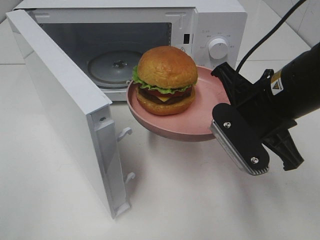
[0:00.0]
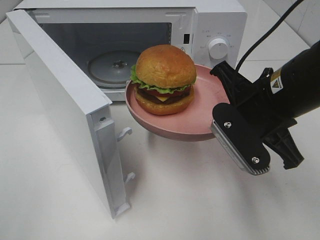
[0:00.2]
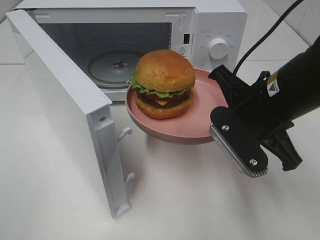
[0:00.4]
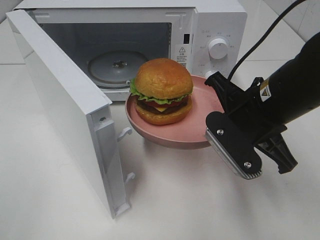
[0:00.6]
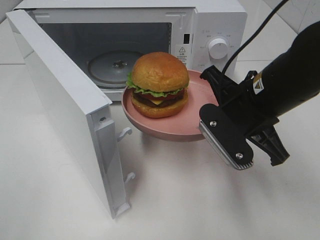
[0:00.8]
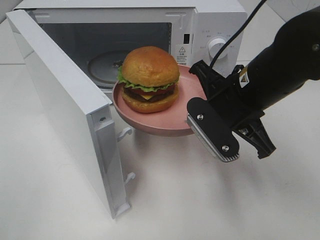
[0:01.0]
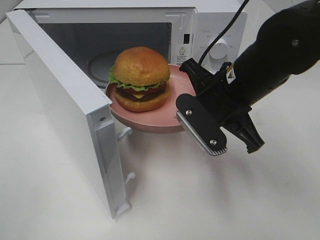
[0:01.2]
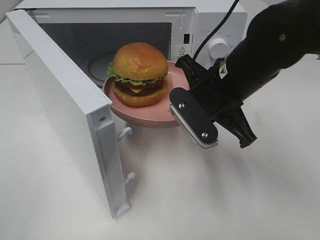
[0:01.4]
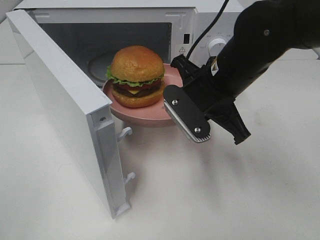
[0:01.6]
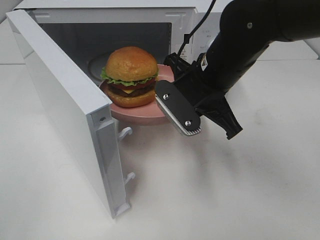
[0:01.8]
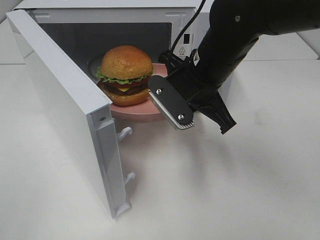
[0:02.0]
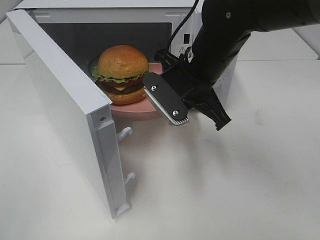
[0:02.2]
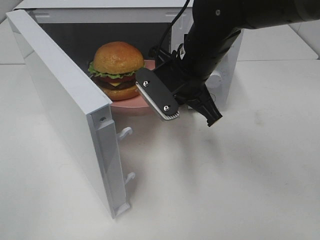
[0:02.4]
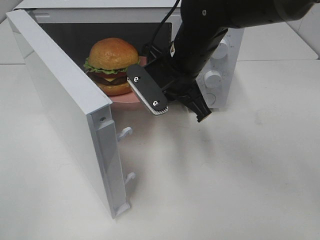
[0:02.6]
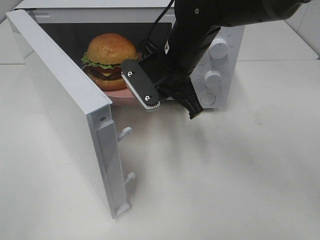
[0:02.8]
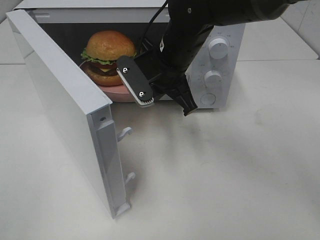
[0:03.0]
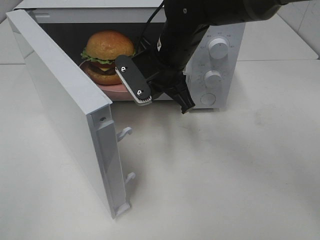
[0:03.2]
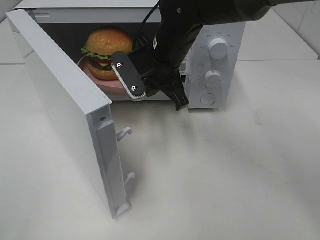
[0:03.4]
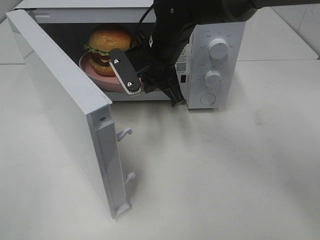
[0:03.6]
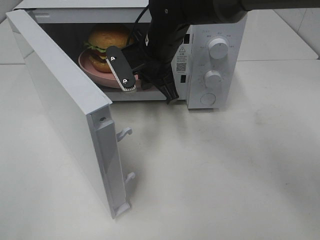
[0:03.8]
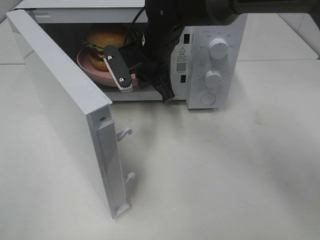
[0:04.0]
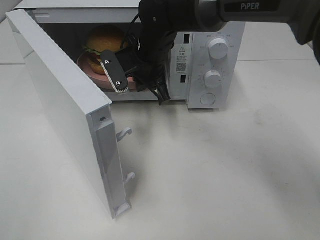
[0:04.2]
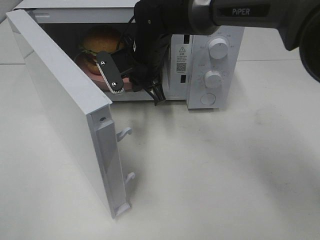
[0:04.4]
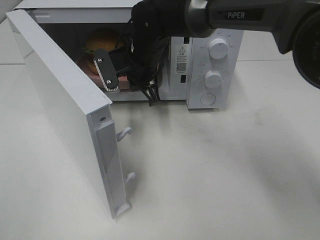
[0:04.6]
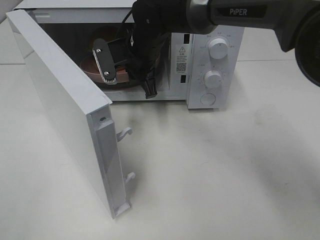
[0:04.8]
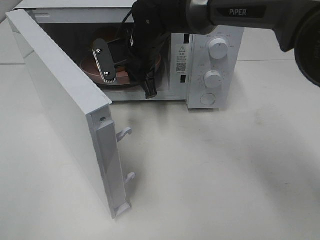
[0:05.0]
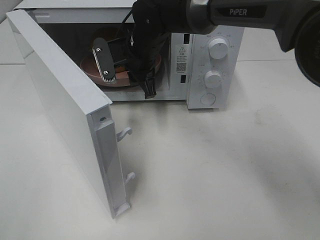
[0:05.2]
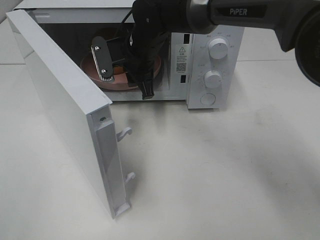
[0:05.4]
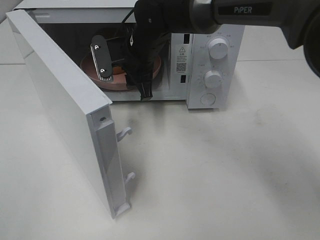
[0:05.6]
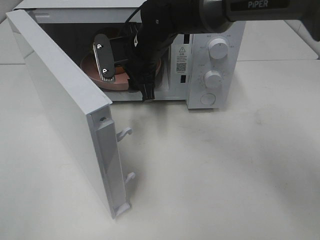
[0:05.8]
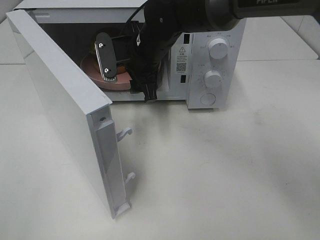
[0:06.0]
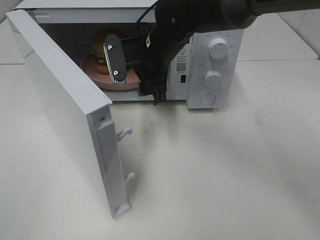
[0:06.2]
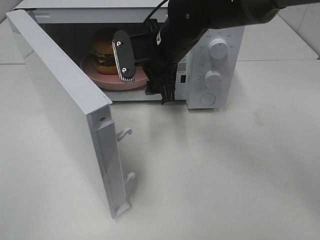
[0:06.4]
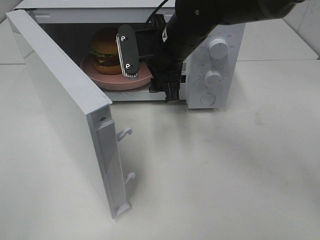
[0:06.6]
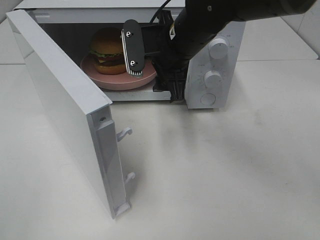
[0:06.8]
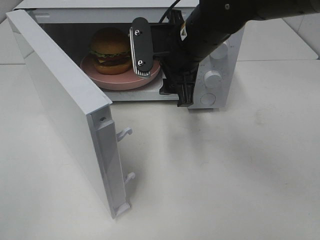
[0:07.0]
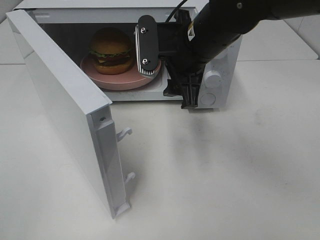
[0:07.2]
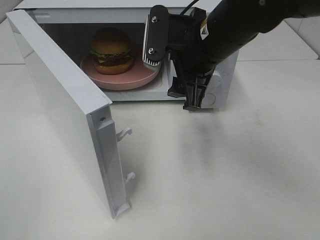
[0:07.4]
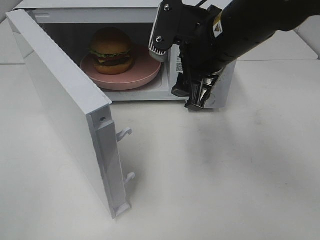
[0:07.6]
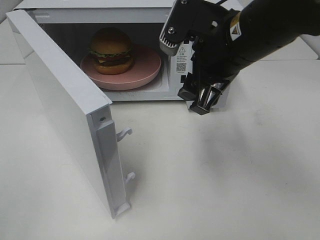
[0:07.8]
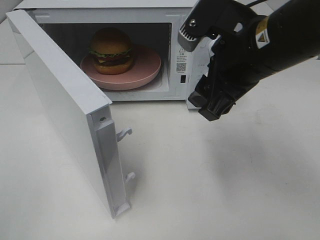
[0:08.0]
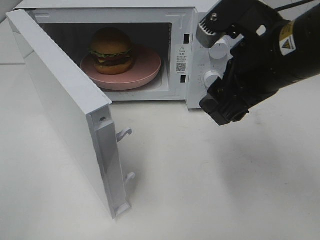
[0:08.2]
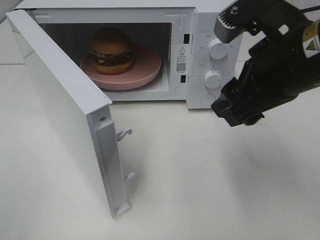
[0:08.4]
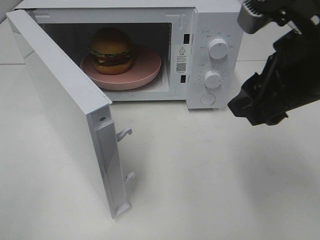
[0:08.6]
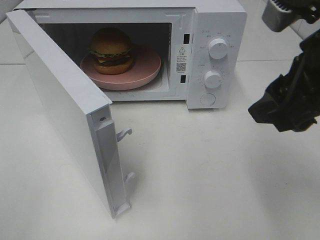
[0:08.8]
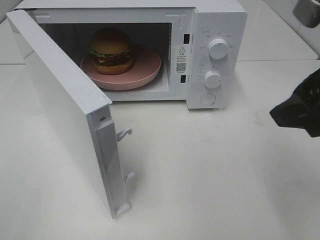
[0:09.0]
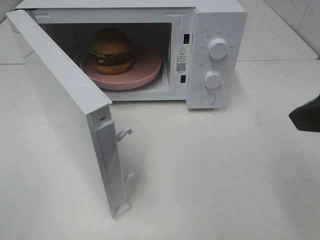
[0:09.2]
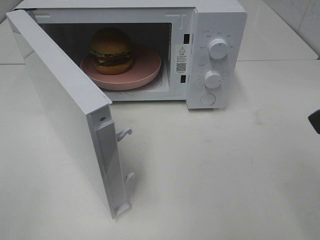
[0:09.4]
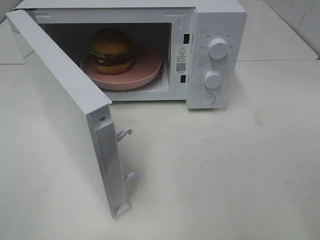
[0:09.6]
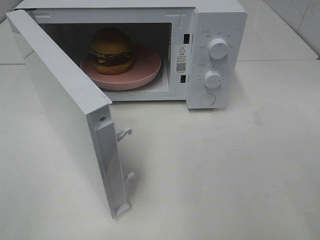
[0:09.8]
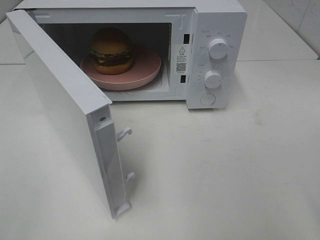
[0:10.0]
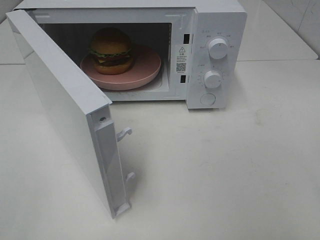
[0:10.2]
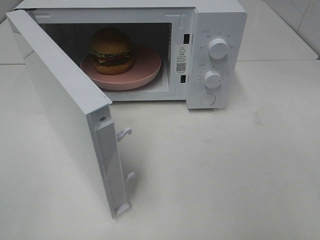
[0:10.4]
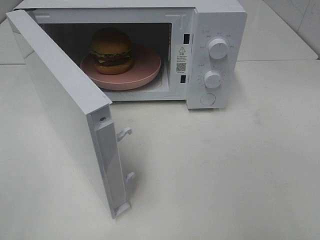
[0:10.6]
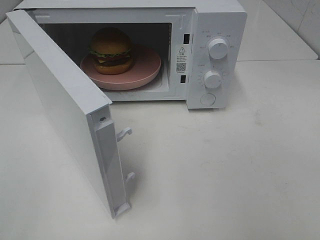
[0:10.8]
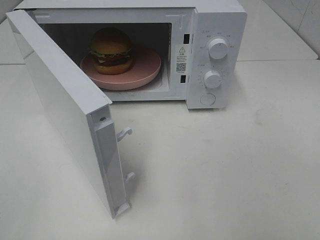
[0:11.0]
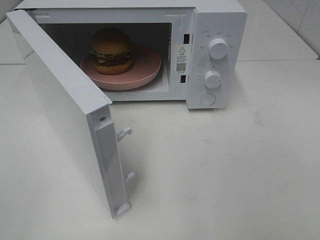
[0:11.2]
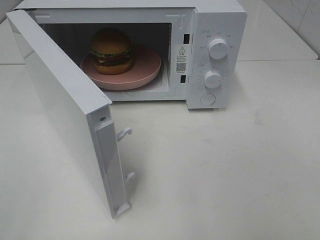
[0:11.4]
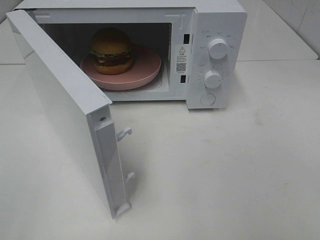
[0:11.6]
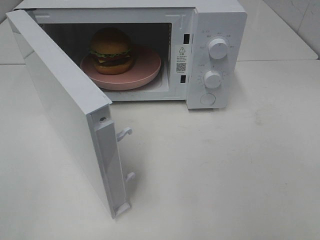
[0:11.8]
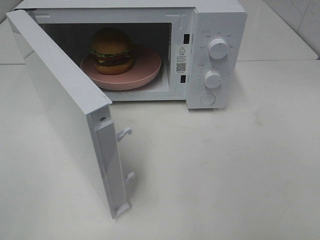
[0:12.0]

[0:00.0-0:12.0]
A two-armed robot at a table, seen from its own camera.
Task of the whole recording: Heat the burger.
Step, 0:00.0 to 0:06.4: Right hand: place the plate in the microwave.
0:00.0 to 0:01.6: The right gripper moves forward and to the left, roughly 10 cm.
0:01.6 to 0:03.0: The right gripper heads forward and to the left, covering some 10 cm.
0:03.0 to 0:04.4: The right gripper moves forward, approximately 5 cm.
0:04.4 to 0:06.0: The right gripper opens its fingers.
0:06.0 to 0:07.6: The right gripper travels backward, to the right and upward by roughly 15 cm.
0:07.6 to 0:09.0: The right gripper heads backward, to the right and upward, covering approximately 20 cm.
0:09.0 to 0:10.4: The right gripper heads backward and to the right, covering some 15 cm.

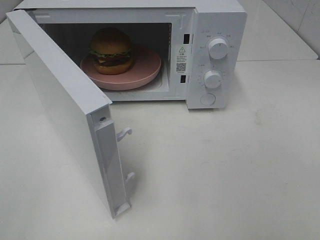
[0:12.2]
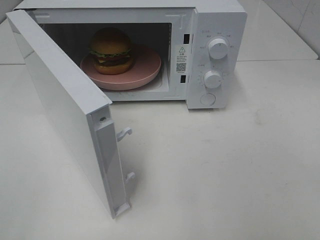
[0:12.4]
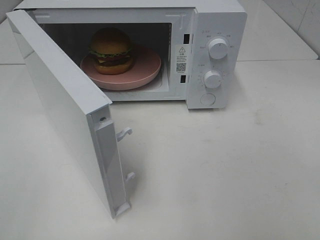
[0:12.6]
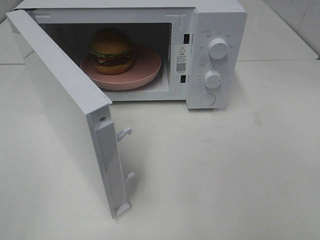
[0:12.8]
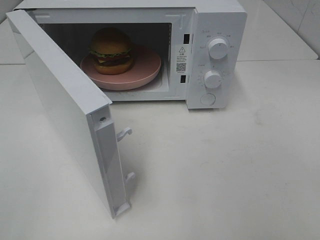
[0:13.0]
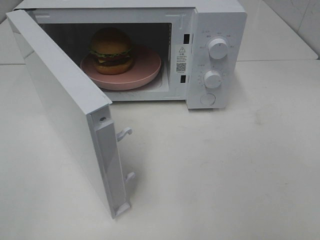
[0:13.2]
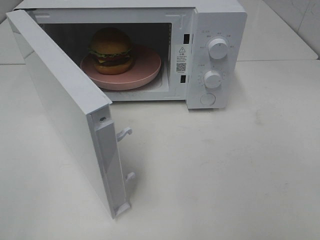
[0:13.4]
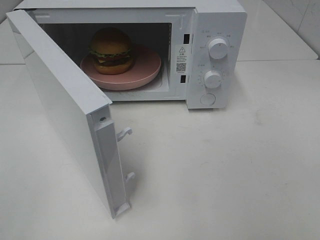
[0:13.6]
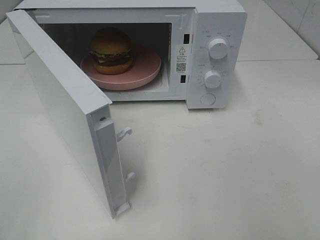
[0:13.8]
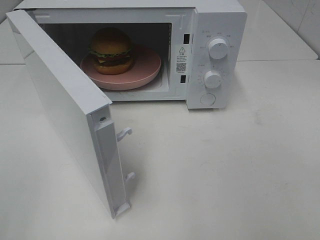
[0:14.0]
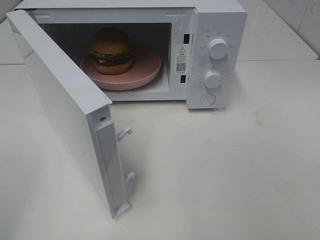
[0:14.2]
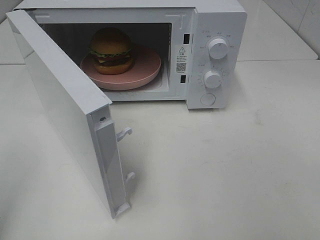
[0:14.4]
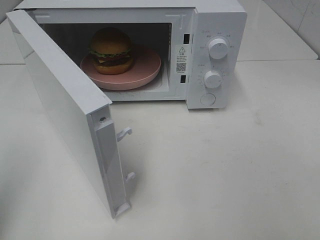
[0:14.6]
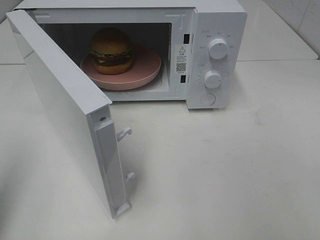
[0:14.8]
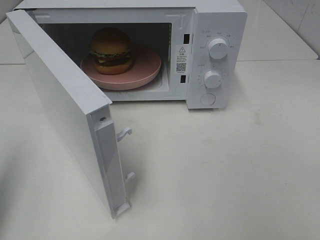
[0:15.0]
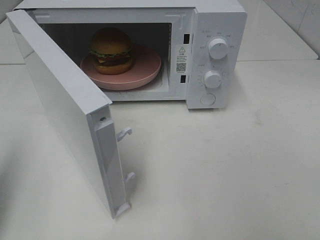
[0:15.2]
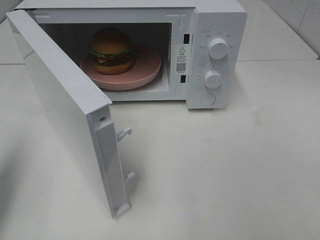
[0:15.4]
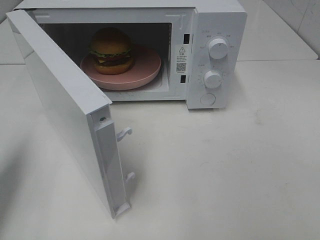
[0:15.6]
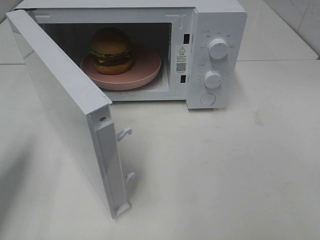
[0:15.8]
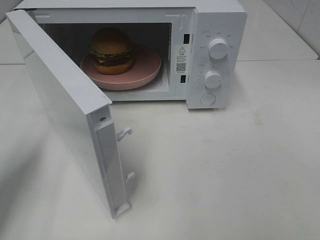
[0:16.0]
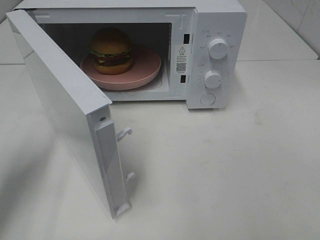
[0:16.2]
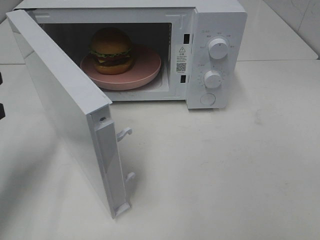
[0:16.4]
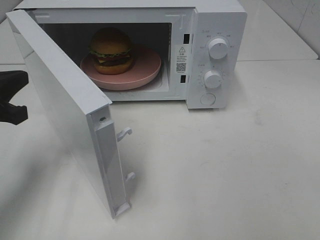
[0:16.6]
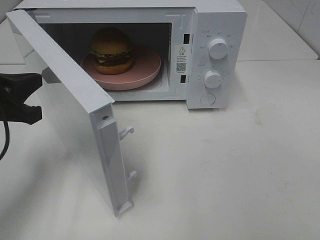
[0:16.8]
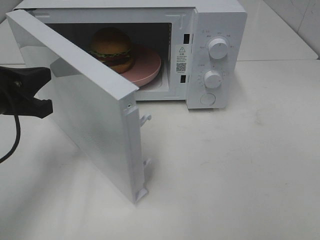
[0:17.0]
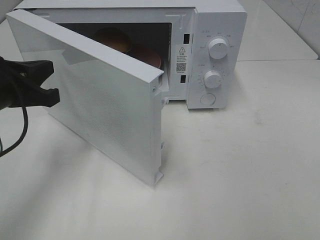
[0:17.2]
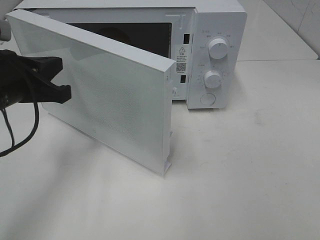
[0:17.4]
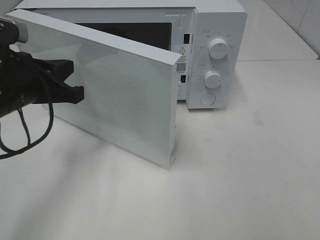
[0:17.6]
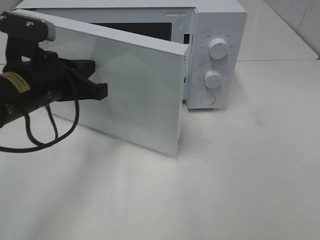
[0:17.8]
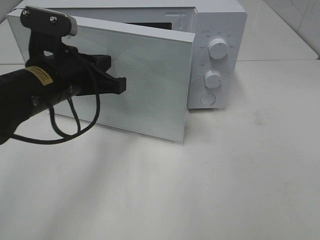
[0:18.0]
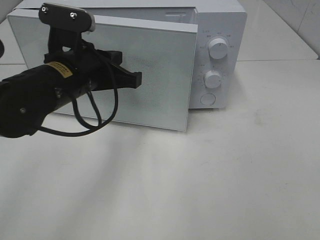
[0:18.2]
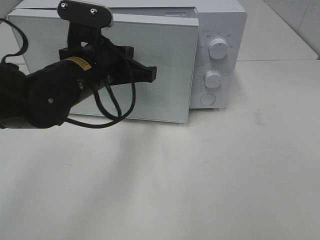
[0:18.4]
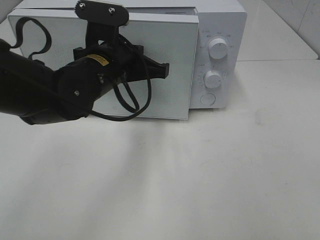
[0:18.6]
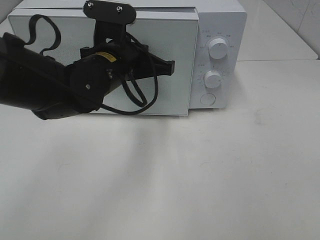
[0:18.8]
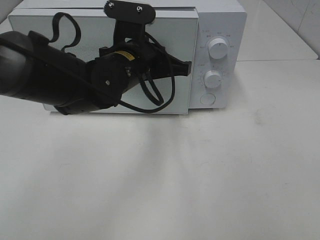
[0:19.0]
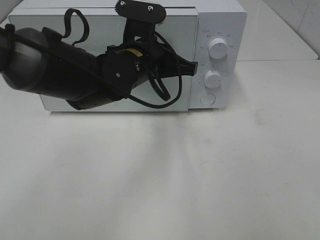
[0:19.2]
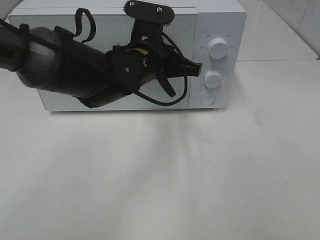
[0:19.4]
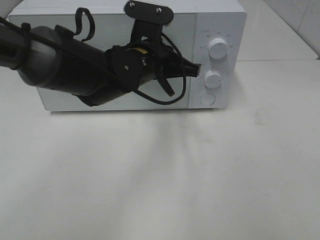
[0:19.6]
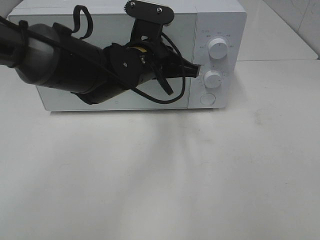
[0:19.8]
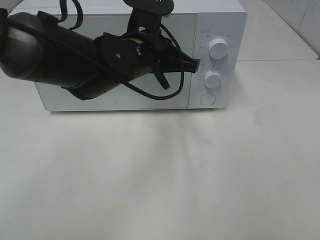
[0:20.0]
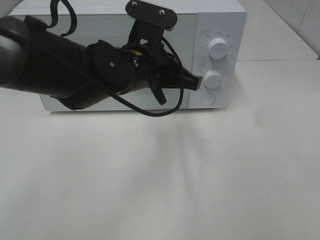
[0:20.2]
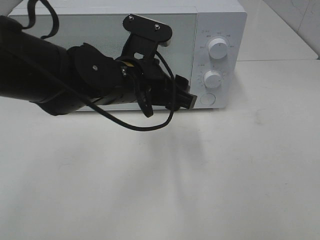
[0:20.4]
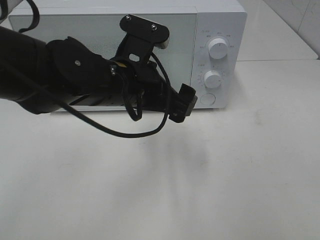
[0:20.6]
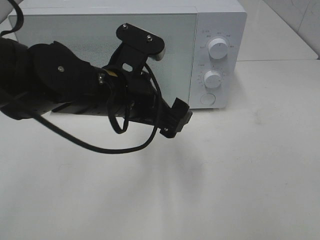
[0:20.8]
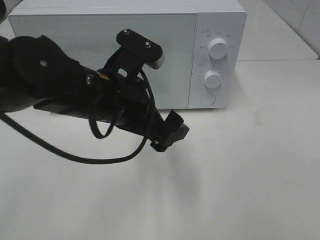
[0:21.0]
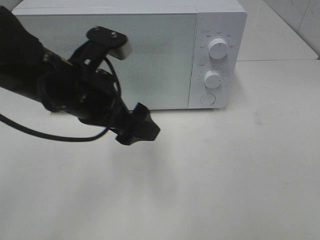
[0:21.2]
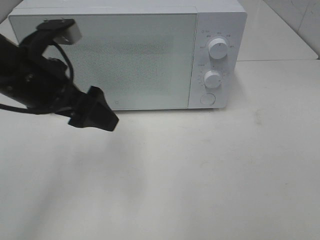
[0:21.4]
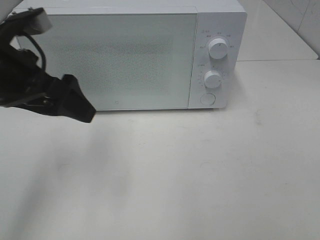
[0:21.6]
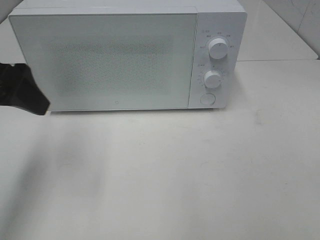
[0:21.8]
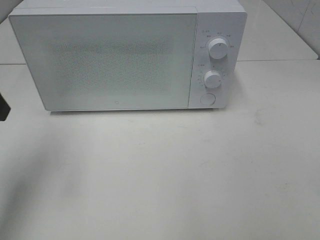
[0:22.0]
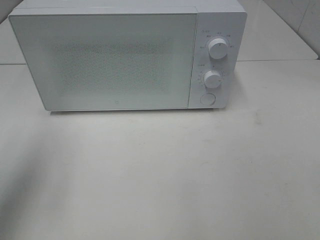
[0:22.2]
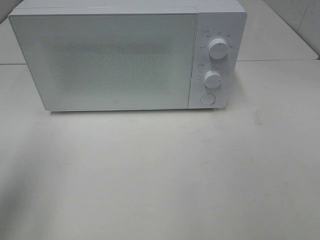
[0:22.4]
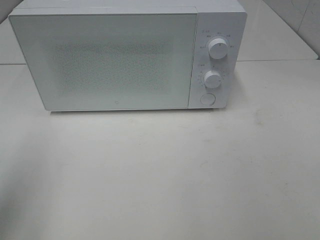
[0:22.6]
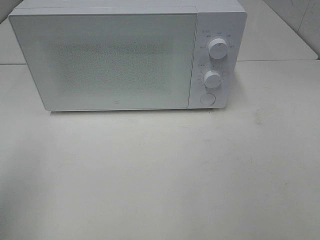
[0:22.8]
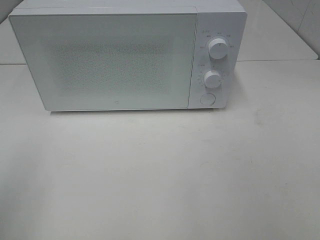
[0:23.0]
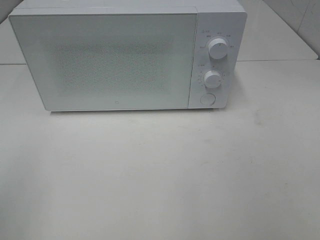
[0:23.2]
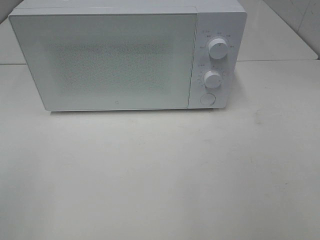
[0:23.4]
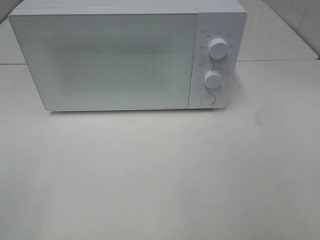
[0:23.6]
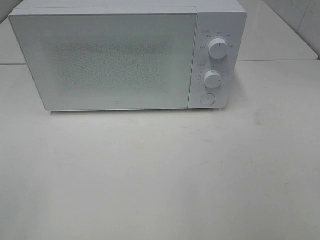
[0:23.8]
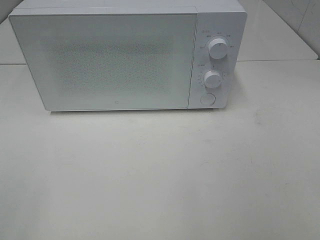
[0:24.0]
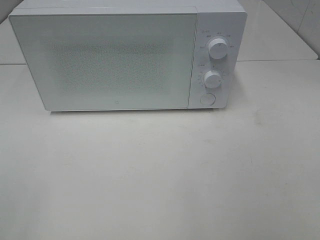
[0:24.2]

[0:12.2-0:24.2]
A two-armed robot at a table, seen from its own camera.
Task of the whole recording: Heat the burger.
Step, 0:12.2 to 0:20.2: Left hand: close the microwave door.
0:13.8 to 0:15.2: The left gripper is displaced forward by some 15 cm, and closes up.
0:15.2 to 0:16.6: The left gripper is displaced forward, downward and to the right by some 10 cm.
0:16.6 to 0:18.2: The left gripper heads to the right, covering some 15 cm.
0:18.2 to 0:19.8: The left gripper heads to the right and forward, covering approximately 10 cm.
0:19.8 to 0:21.2: The left gripper goes some 15 cm to the left and backward, and opens its fingers.
0:21.2 to 0:22.6: The left gripper goes approximately 20 cm to the left and backward.
0:22.6 to 0:24.2: The left gripper moves backward, about 15 cm.
